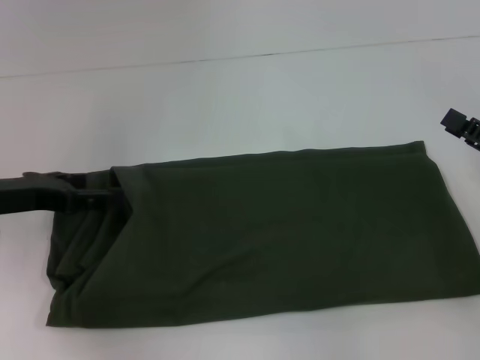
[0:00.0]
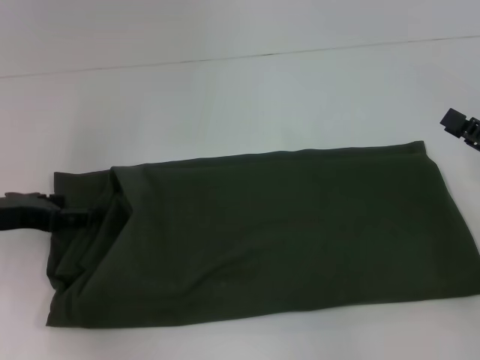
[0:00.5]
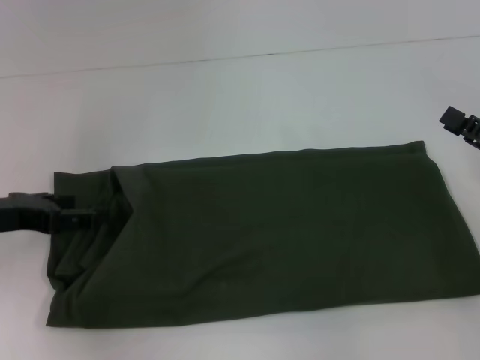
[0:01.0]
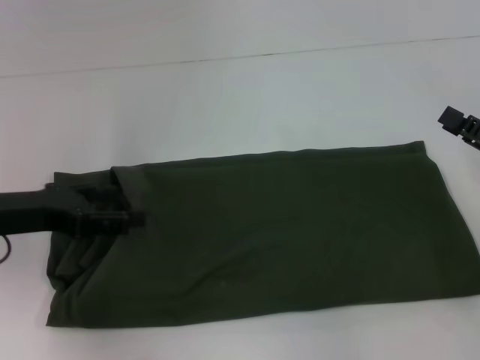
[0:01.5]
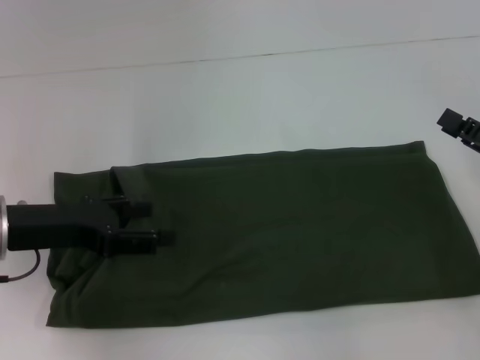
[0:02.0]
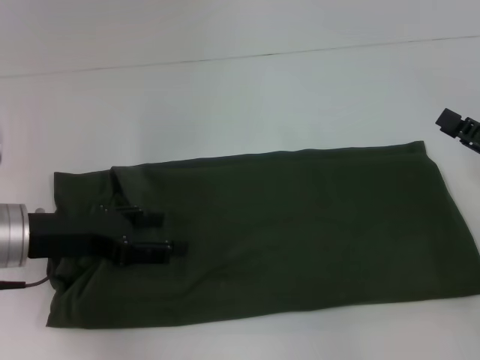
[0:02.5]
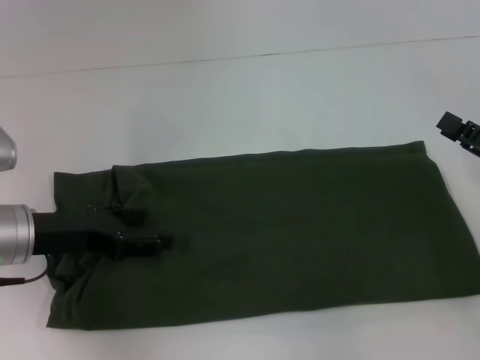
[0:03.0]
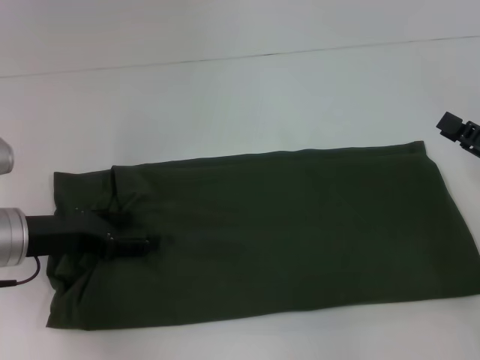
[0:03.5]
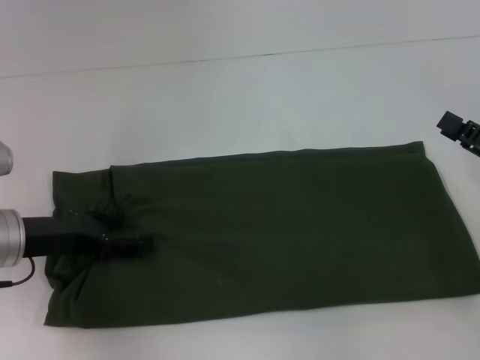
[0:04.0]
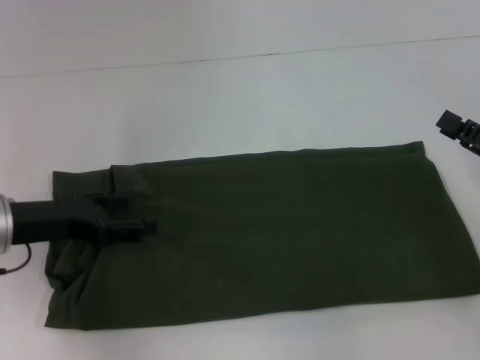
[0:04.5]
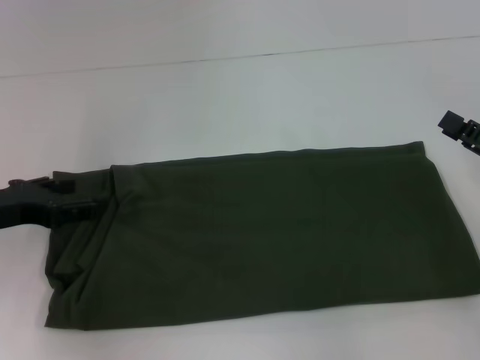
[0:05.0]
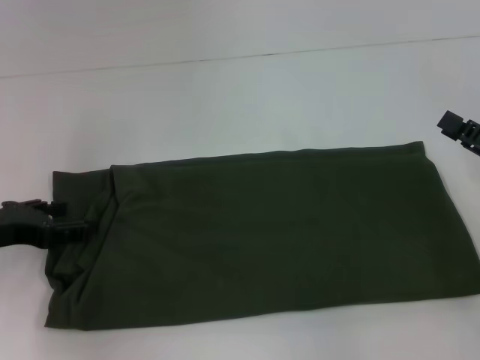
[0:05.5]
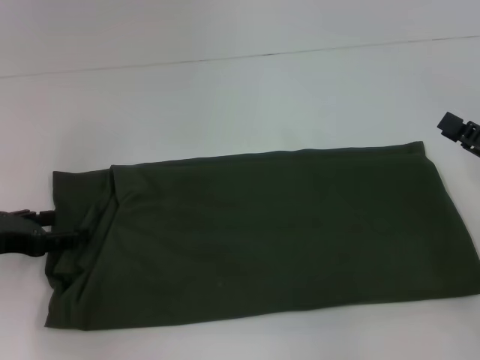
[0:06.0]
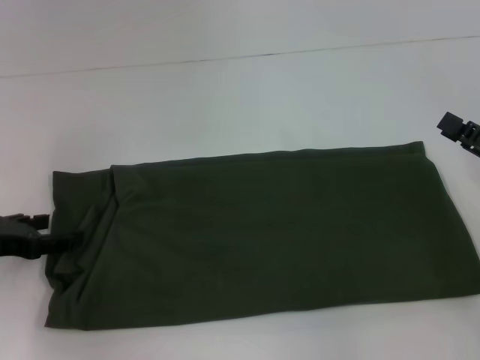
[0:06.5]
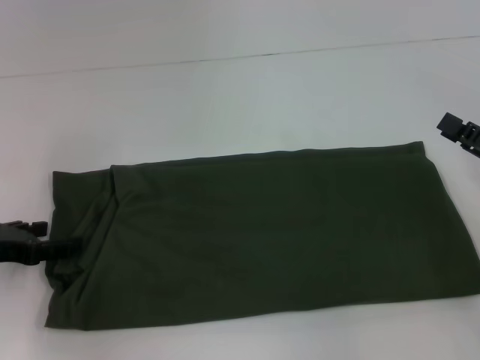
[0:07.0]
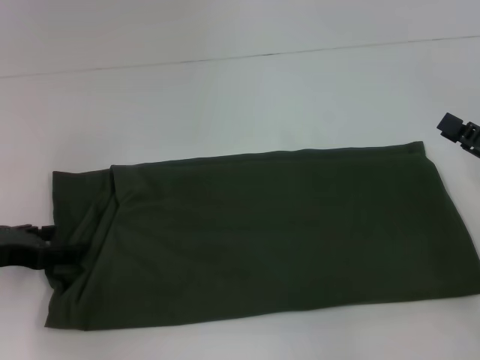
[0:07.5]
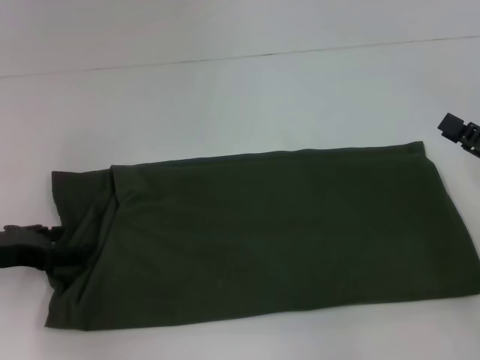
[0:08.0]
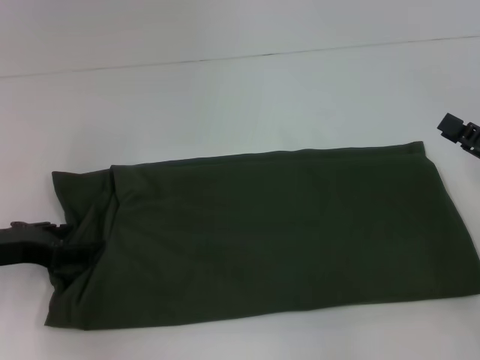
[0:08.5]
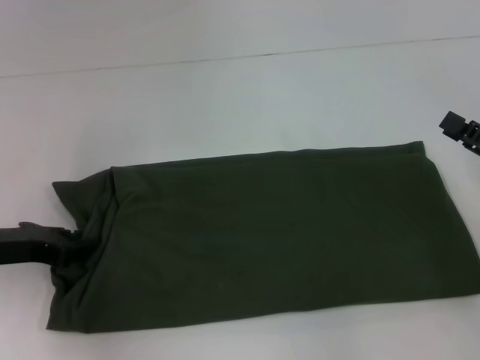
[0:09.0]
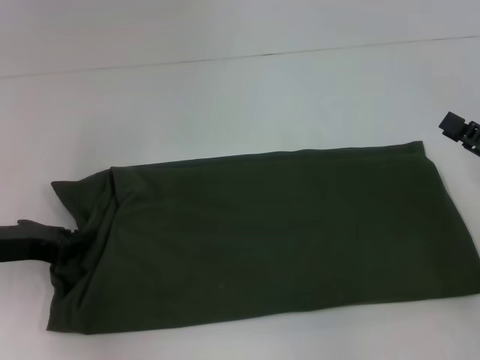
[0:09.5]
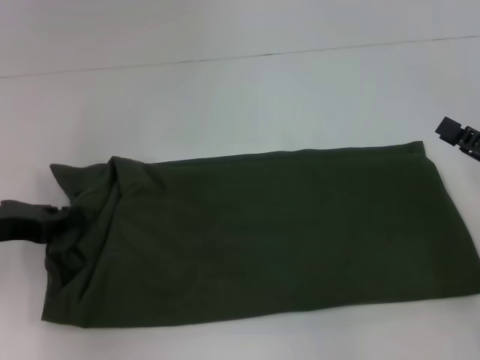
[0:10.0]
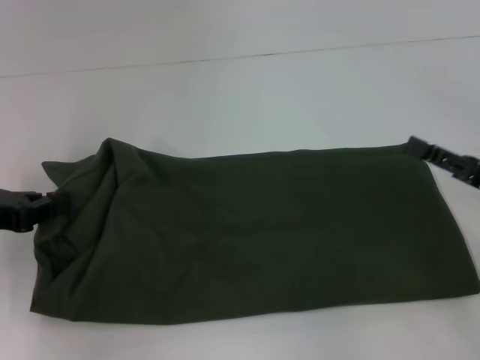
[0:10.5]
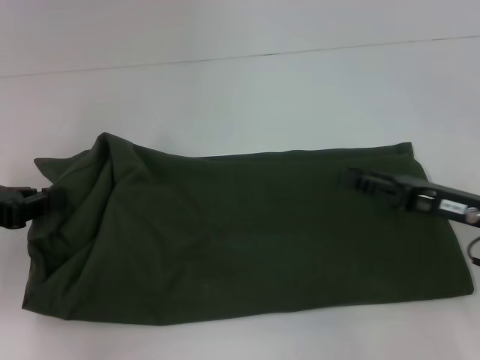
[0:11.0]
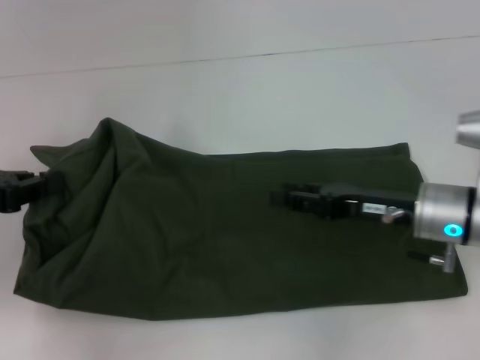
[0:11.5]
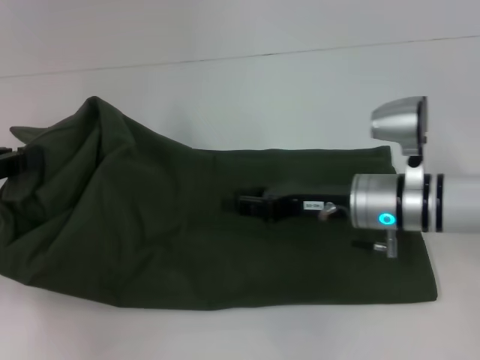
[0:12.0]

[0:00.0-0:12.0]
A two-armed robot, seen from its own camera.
0:02.0 to 0:04.0: The grippers make only small movements.
0:04.0 to 0:06.0: The left gripper is displaced to the left by approximately 5 cm.
0:06.0 to 0:08.0: The two grippers keep their place.
0:08.0 to 0:10.0: The left gripper closes its fingers.
0:10.0 to 0:12.0: The right gripper travels to the left and forward by some 20 cm. Meanwhile the left gripper goes some 5 cm upward.

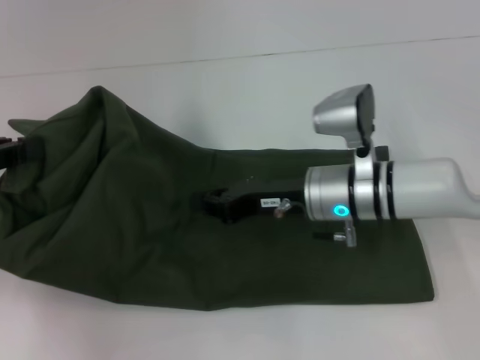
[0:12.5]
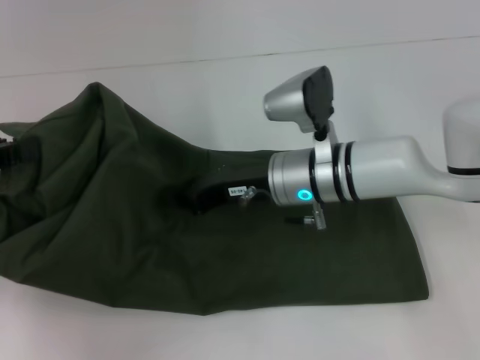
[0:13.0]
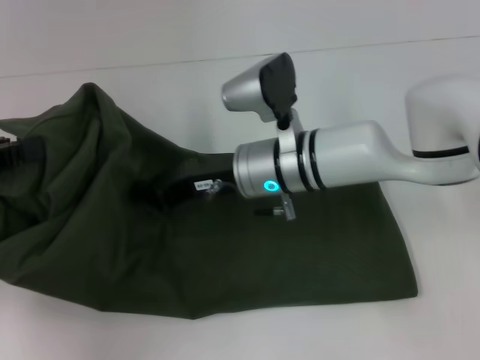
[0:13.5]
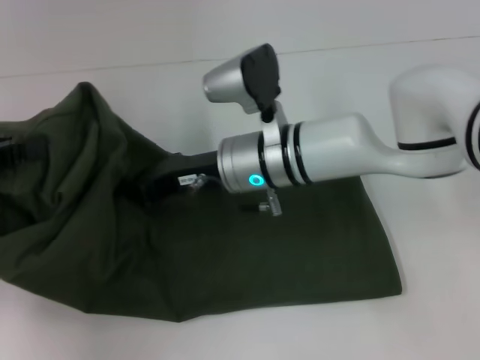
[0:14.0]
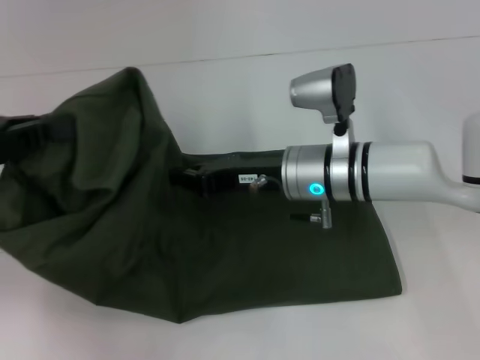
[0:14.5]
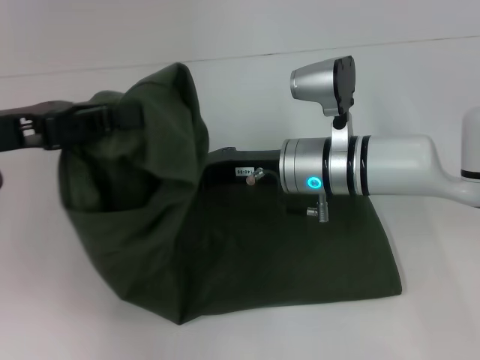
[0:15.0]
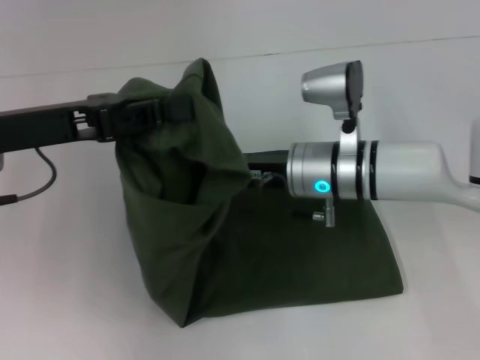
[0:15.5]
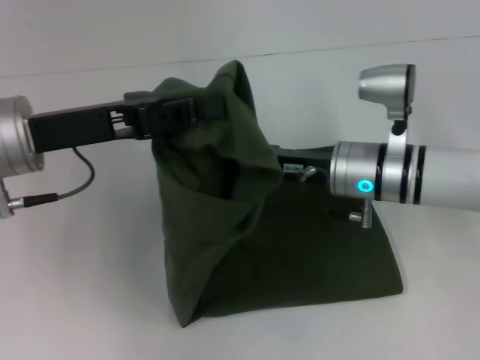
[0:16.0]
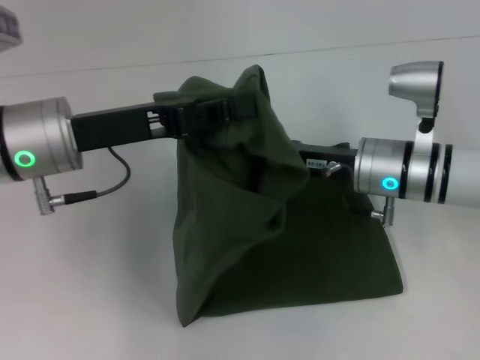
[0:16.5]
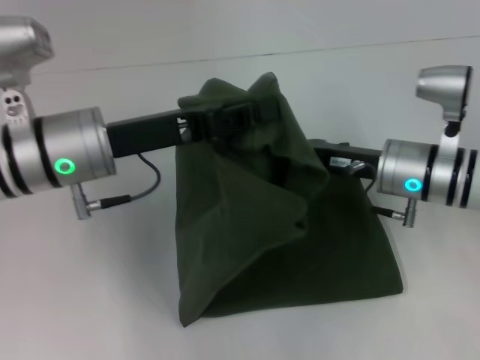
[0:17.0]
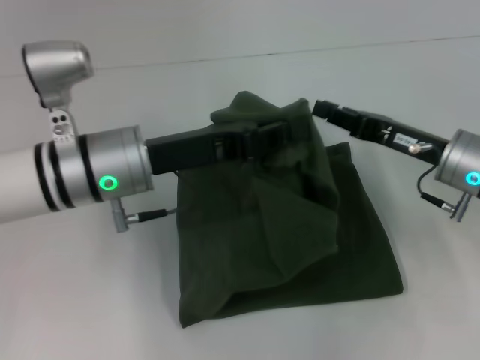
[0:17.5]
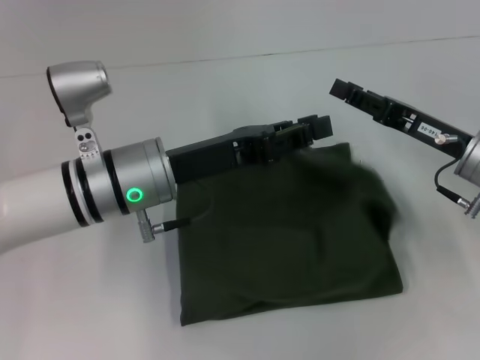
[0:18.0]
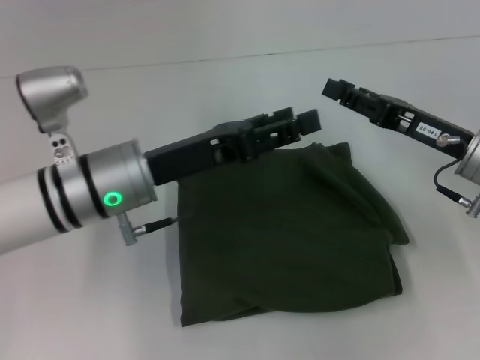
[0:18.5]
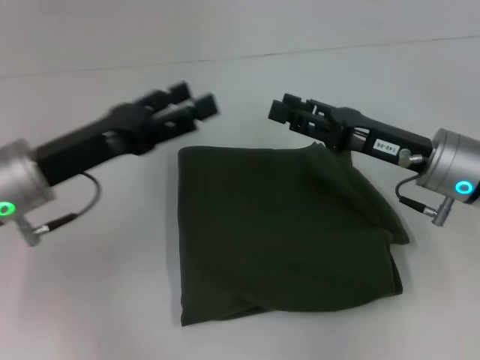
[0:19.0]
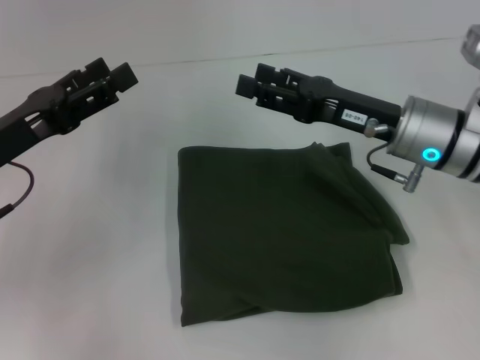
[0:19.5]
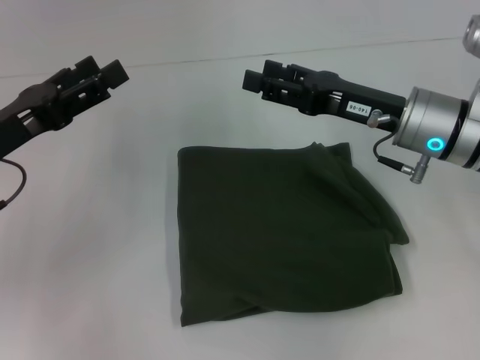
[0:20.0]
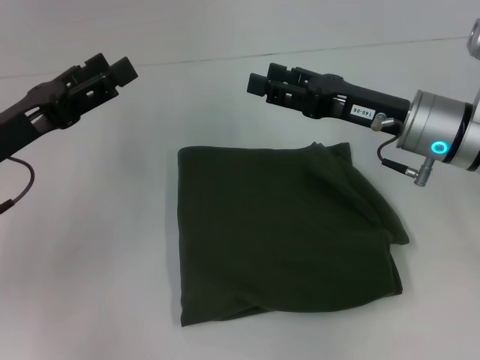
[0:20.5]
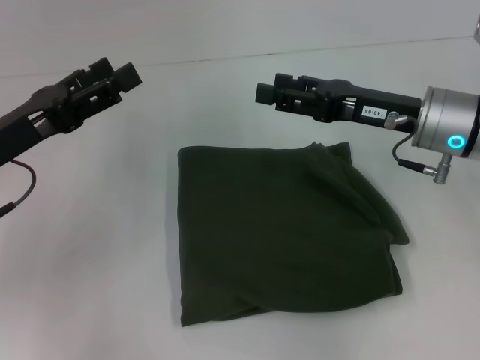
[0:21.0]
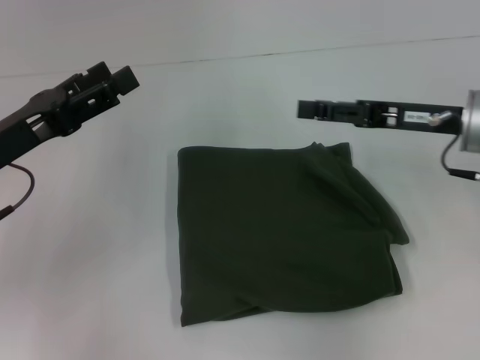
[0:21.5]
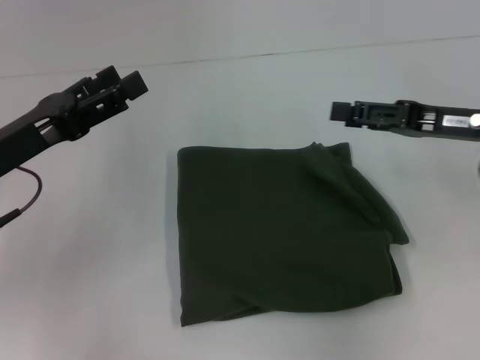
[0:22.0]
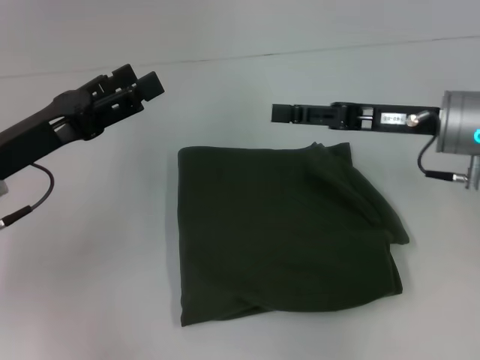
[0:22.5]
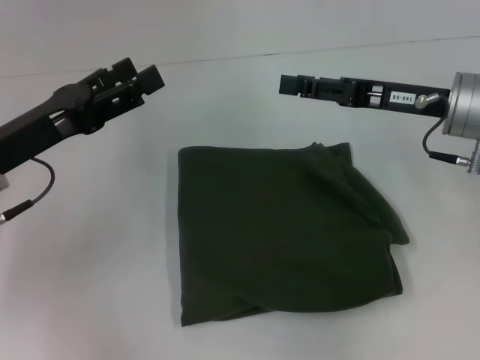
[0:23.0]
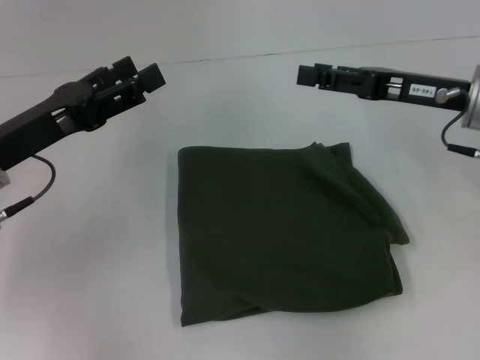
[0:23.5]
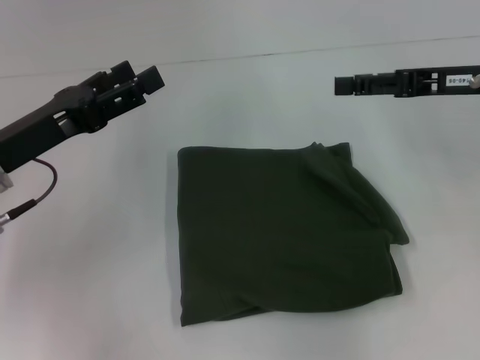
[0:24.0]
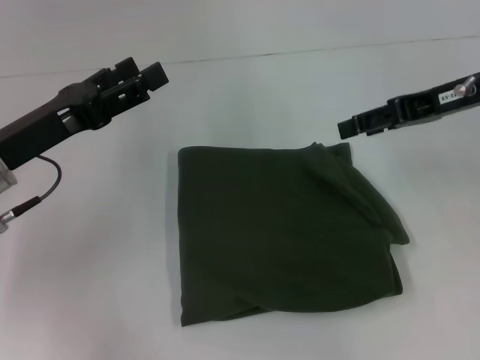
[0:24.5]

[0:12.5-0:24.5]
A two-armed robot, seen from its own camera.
Step, 0:12.5 to 0:19.5: Fold the clothes with your left hand.
0:12.5 to 0:14.5: The right gripper travels to the left and back again, some 10 cm each way.
0:14.5 to 0:16.5: The right gripper travels to the right by roughly 5 cm; the left gripper heads to the right, covering roughly 15 cm.
0:16.5 to 0:18.5: The right gripper moves to the right, some 10 cm, and opens its fingers, while the left gripper goes some 10 cm downward and to the right, and opens.
0:18.5 to 0:20.5: The right gripper heads to the left, covering about 5 cm, while the left gripper goes about 15 cm to the left, and opens its fingers.
0:22.5 to 0:24.5: The right gripper travels upward by roughly 5 cm.

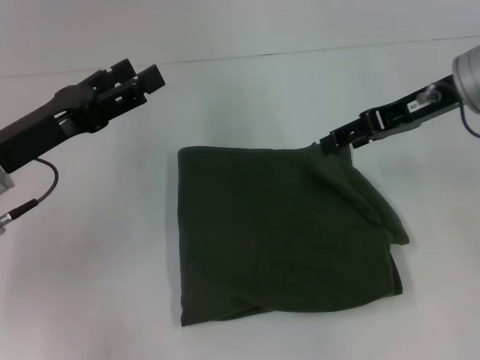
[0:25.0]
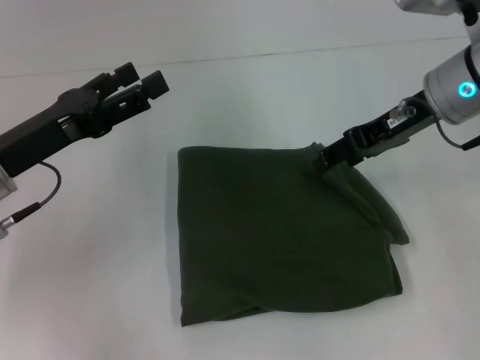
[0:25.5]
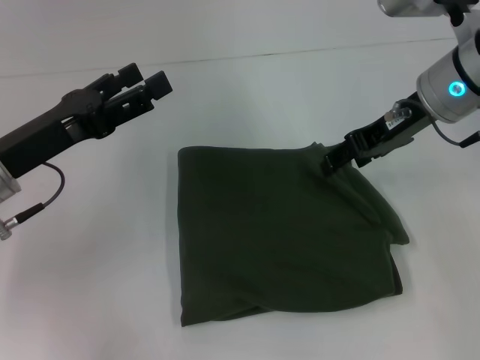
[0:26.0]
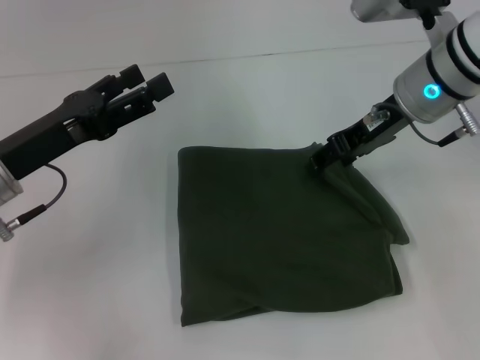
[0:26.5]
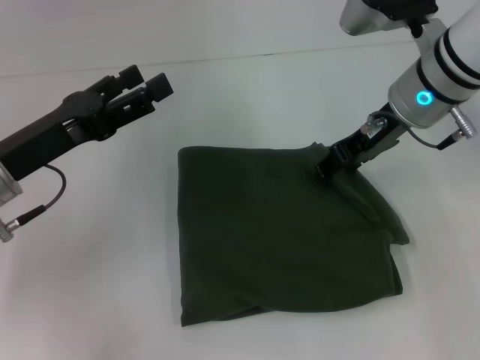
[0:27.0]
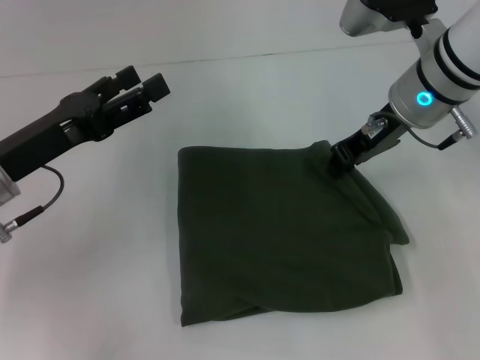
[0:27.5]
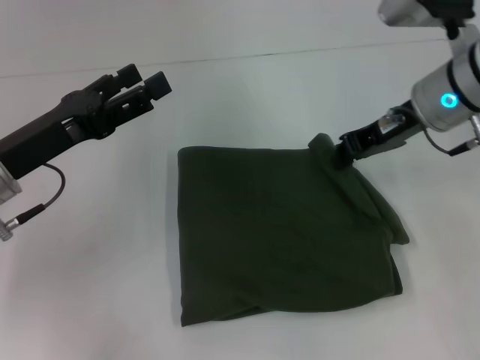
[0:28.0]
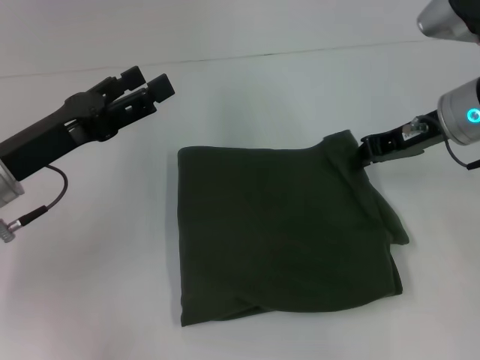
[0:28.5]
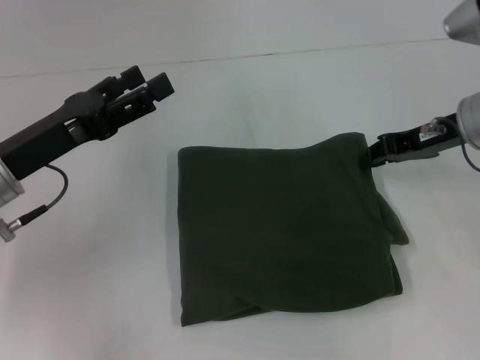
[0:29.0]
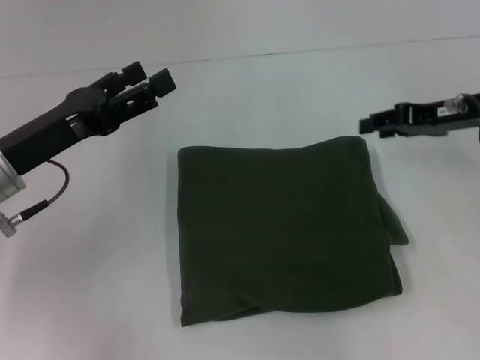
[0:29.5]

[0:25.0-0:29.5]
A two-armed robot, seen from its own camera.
0:25.0 to 0:27.0: The right gripper is displaced to the left by about 5 cm.
0:27.0 to 0:29.5: The right gripper shifts roughly 10 cm to the right, and closes, then reopens.
